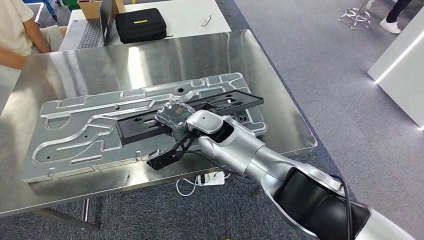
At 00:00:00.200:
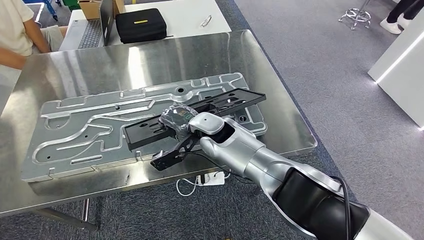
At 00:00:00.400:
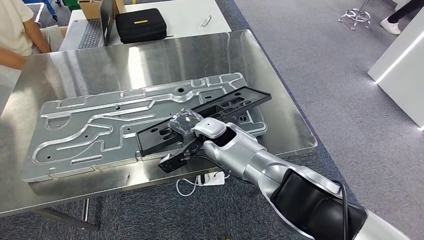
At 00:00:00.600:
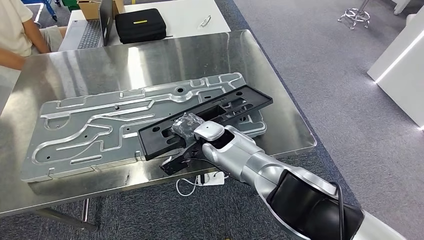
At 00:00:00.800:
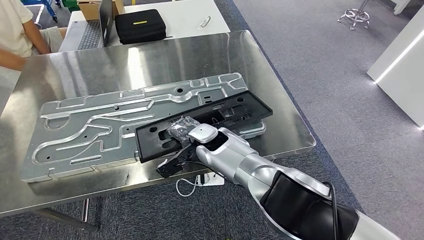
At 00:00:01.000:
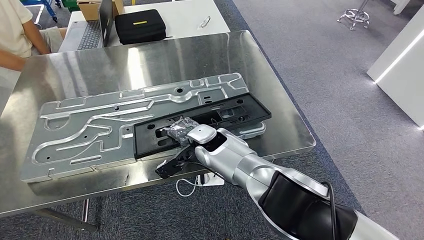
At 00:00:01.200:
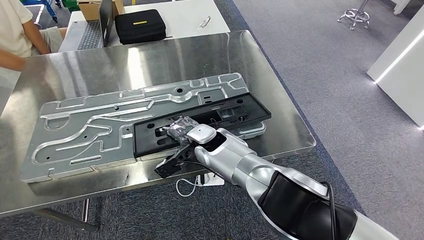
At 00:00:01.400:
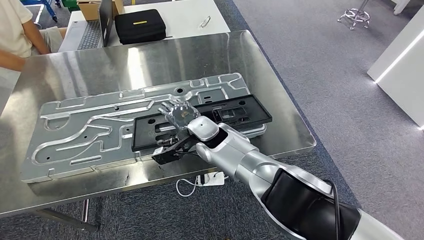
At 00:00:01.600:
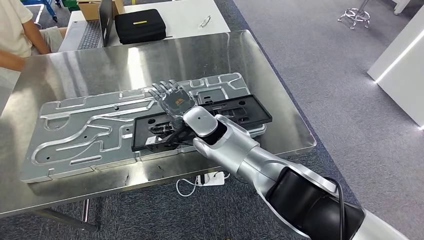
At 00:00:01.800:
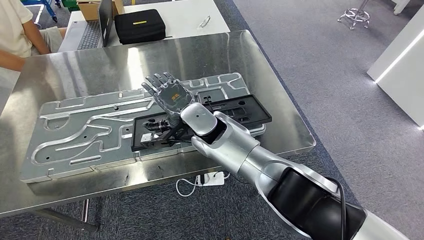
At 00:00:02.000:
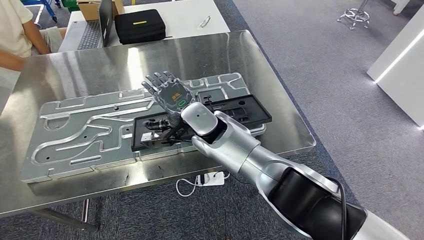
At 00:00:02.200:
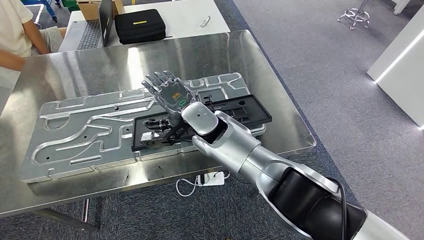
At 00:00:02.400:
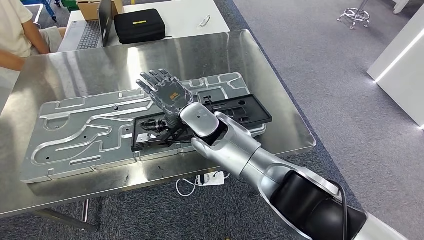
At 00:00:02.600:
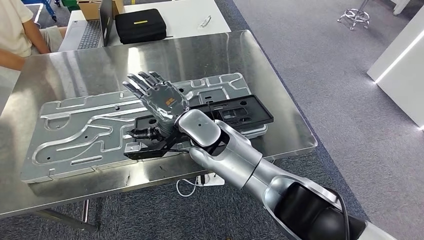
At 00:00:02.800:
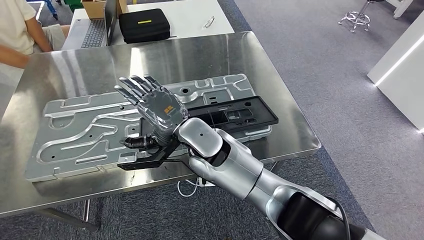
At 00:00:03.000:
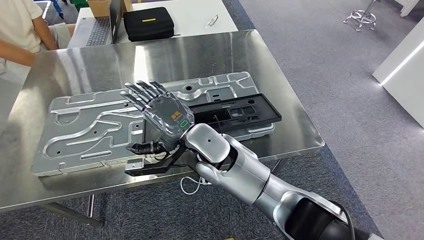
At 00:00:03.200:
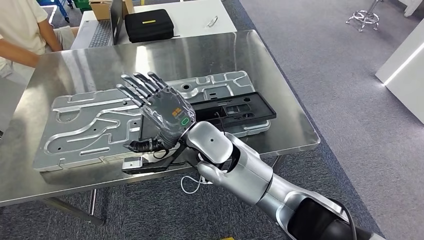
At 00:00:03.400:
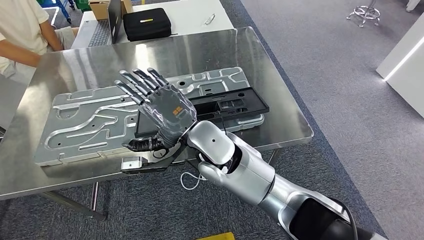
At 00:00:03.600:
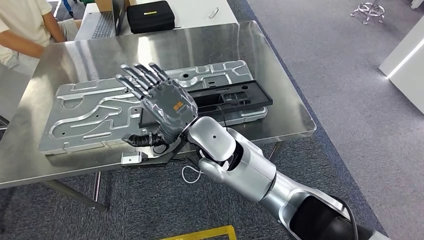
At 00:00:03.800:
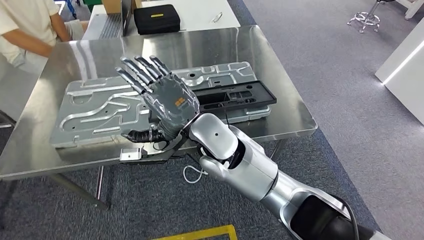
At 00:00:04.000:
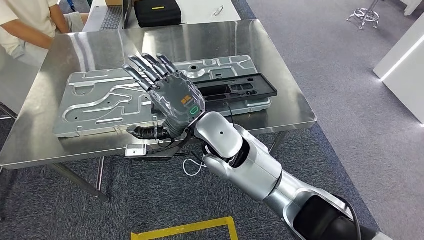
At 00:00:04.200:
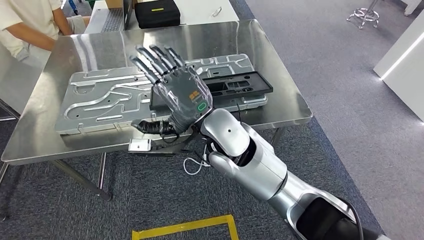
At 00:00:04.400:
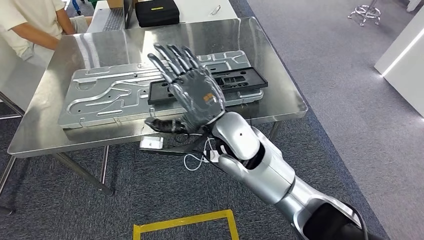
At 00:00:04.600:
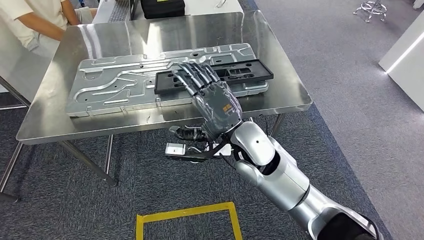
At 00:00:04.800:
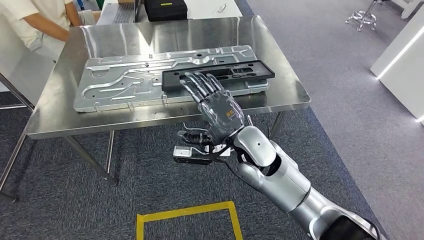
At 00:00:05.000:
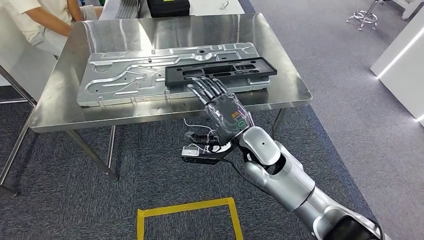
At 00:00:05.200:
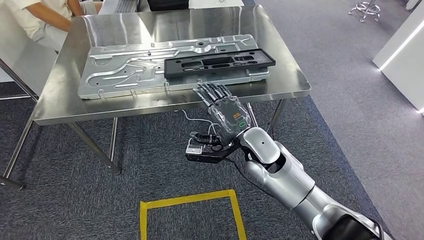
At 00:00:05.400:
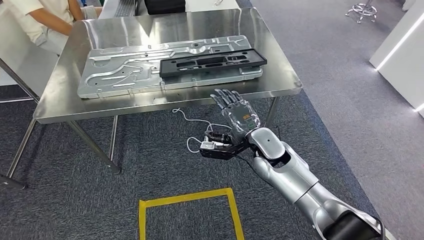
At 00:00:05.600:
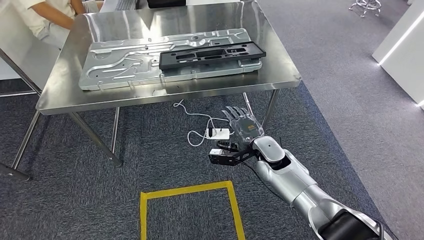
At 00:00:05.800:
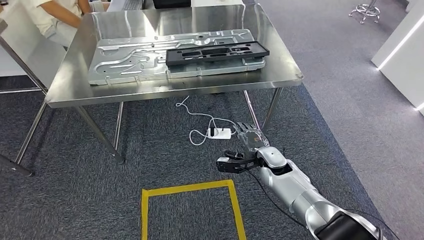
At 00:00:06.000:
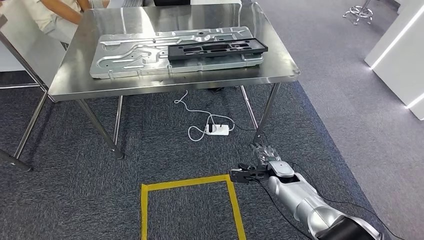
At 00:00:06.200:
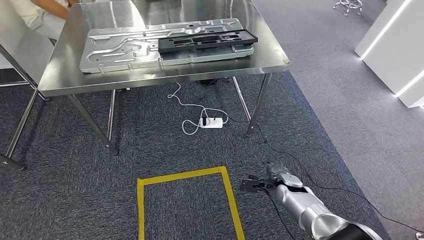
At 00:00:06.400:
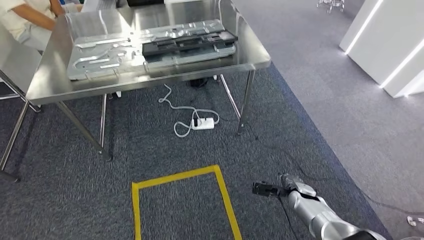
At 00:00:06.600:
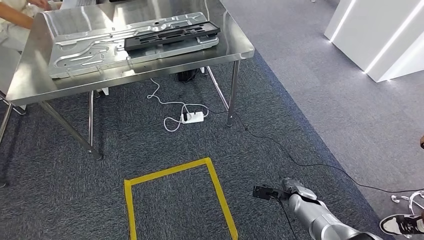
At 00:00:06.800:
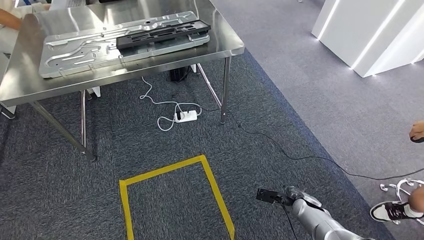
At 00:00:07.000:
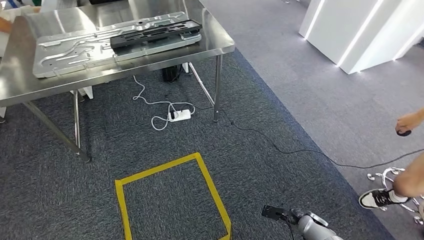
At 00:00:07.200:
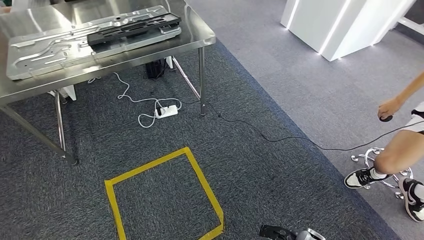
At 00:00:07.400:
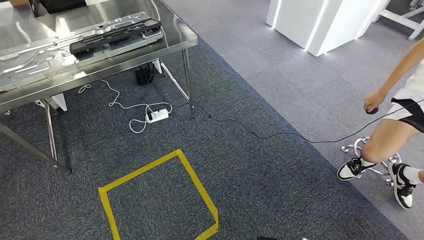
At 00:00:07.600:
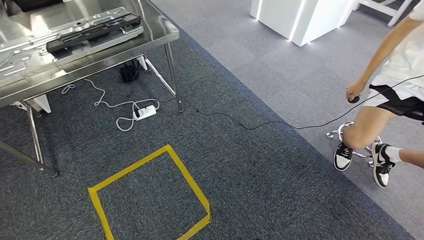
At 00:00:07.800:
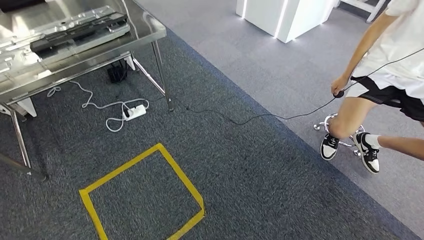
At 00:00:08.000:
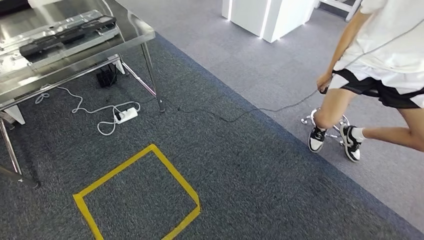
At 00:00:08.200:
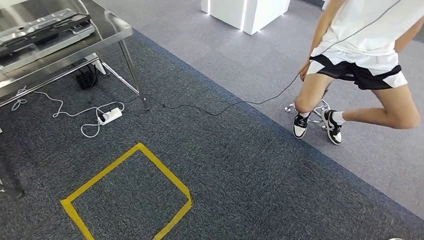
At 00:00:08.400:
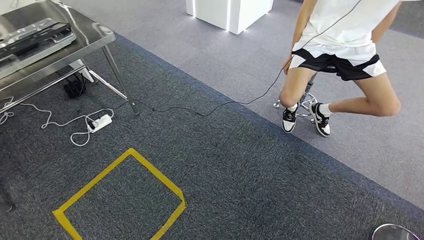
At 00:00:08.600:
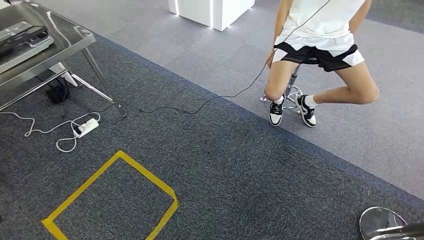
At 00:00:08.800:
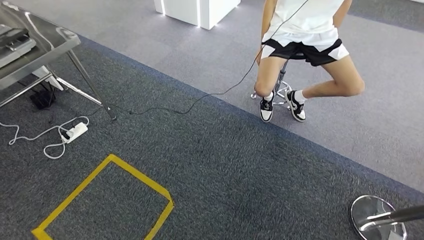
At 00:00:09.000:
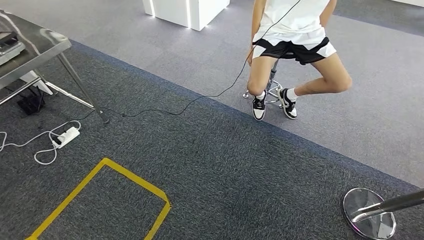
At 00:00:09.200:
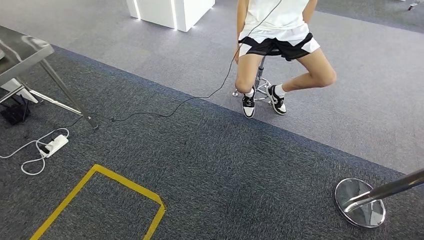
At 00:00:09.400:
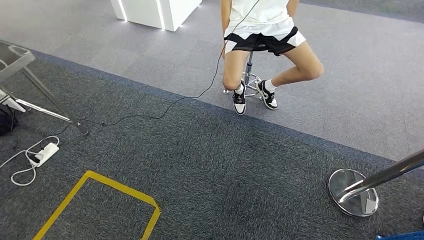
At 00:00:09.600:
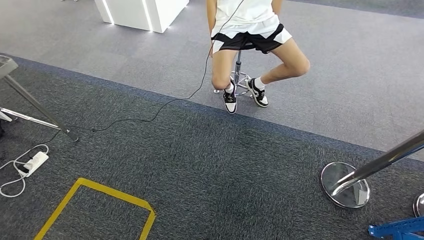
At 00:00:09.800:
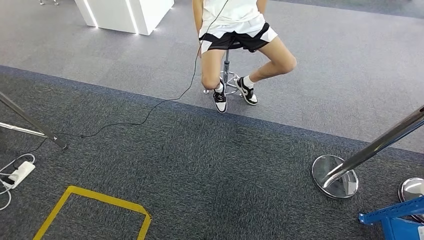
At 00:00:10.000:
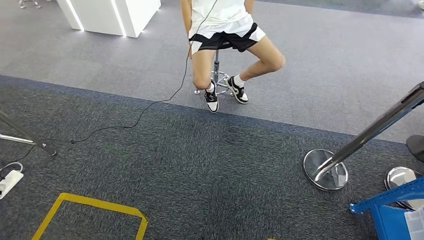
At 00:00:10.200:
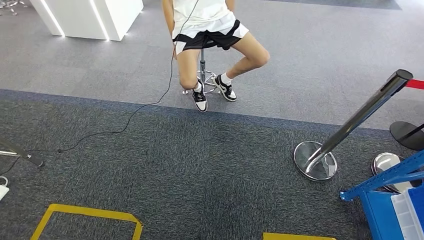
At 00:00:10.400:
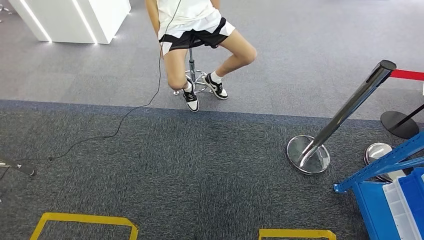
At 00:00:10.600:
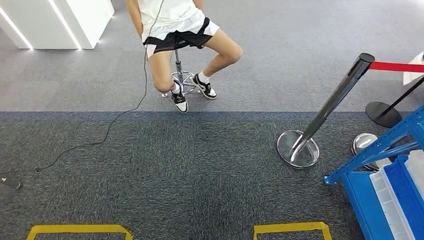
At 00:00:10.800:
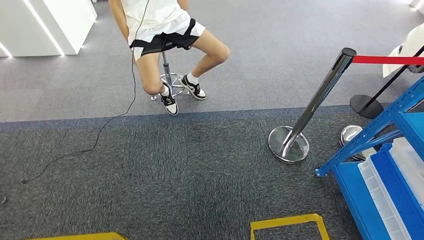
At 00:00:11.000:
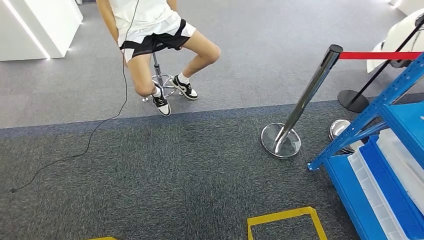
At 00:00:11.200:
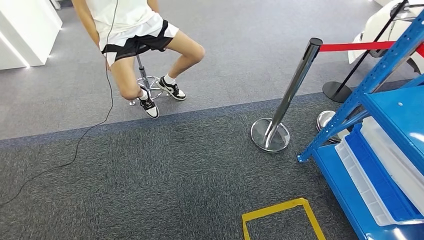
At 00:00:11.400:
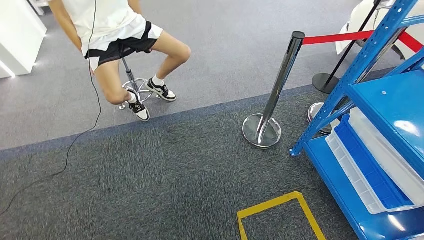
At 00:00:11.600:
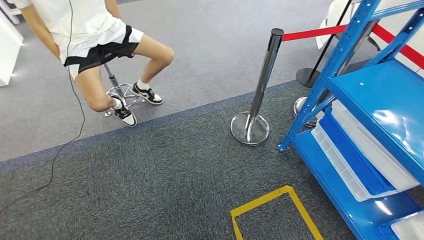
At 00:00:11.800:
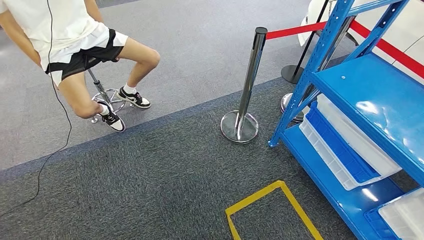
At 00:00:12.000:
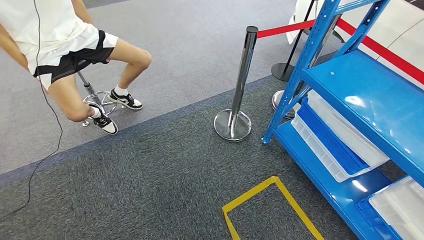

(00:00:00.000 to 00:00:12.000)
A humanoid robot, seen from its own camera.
Step, 00:00:00.000 - 00:00:05.800: Insert the large material into the corresponding slot on the workbench.

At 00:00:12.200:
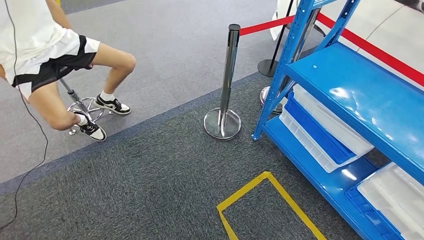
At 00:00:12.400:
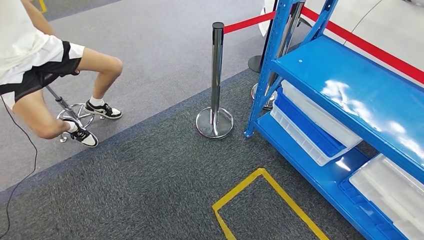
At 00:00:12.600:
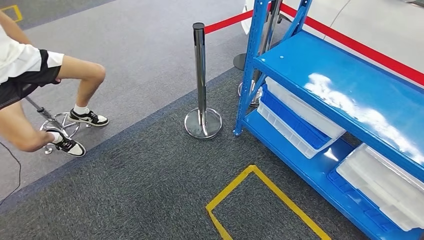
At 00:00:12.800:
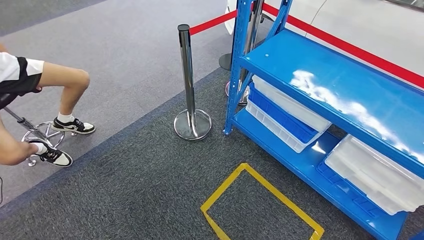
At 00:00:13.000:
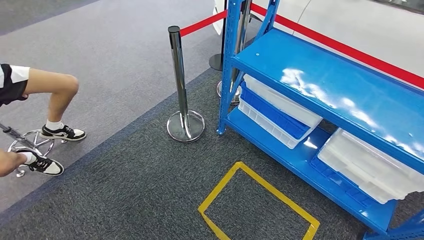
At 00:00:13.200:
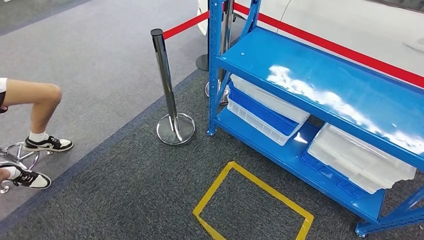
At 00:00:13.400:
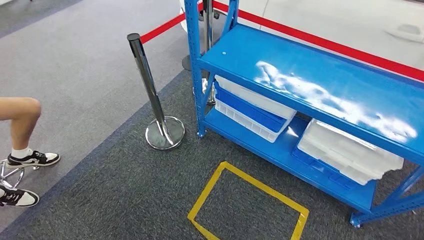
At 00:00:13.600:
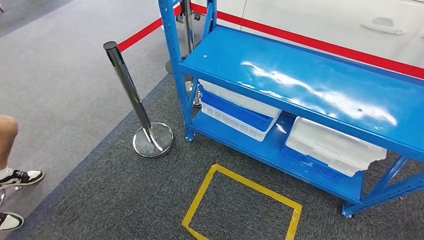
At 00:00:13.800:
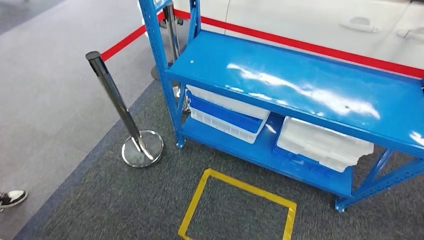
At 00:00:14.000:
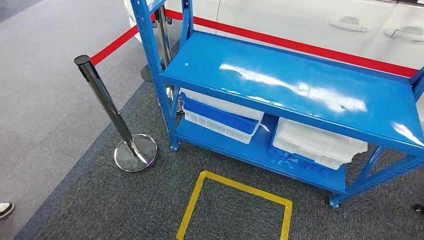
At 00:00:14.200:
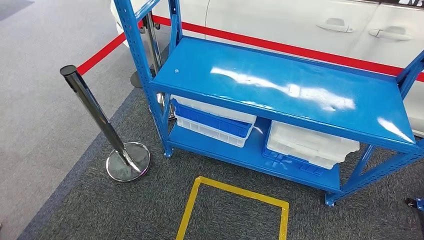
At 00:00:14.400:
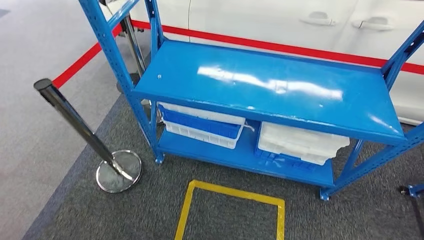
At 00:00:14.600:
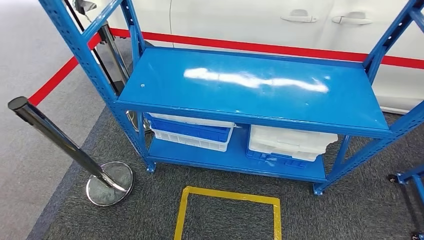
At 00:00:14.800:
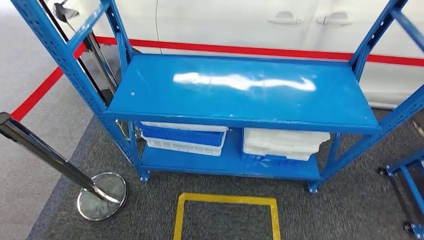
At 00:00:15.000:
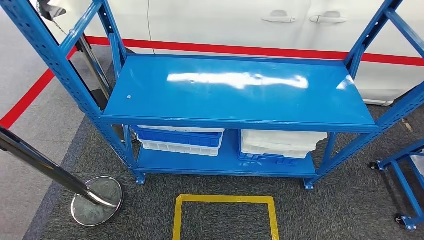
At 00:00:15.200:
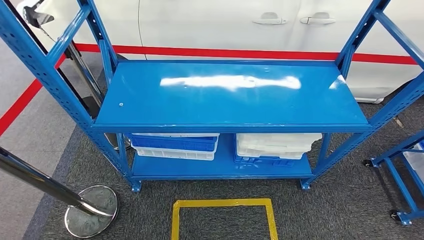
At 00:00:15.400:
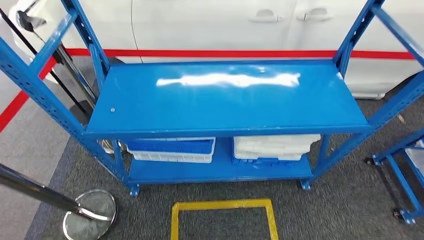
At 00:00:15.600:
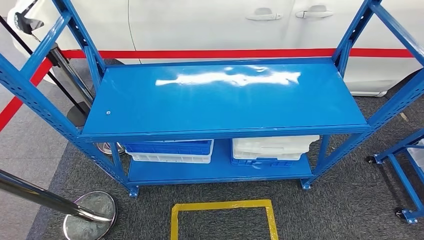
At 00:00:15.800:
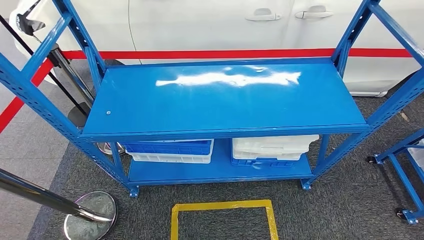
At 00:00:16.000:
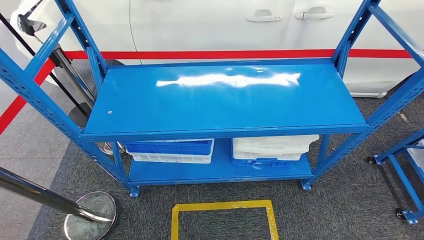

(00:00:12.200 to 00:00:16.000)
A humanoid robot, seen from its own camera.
Step, 00:00:12.200 - 00:00:16.000: Move to the initial position of the shelf.
